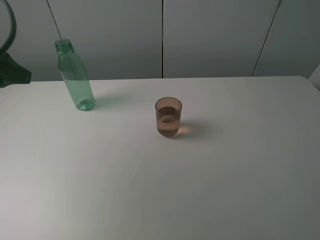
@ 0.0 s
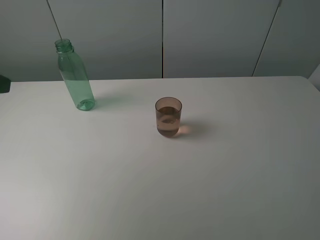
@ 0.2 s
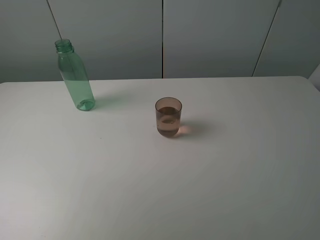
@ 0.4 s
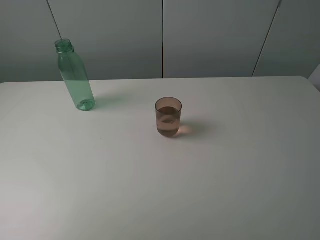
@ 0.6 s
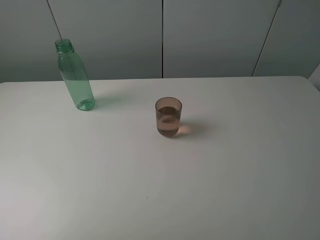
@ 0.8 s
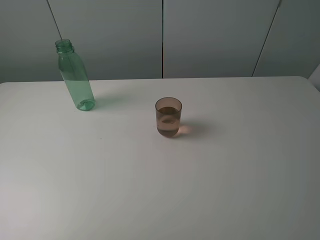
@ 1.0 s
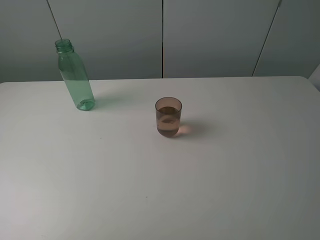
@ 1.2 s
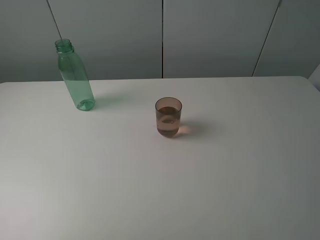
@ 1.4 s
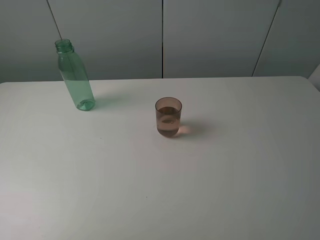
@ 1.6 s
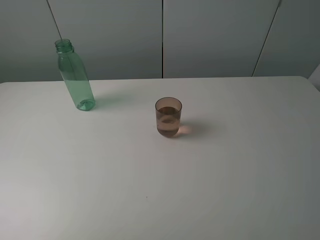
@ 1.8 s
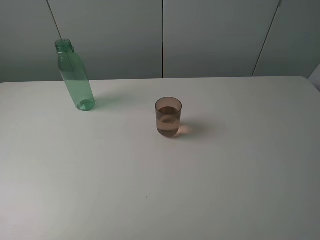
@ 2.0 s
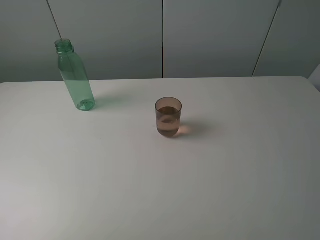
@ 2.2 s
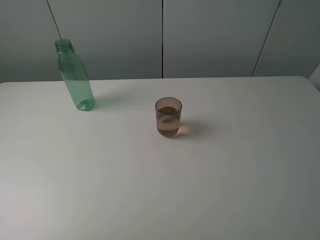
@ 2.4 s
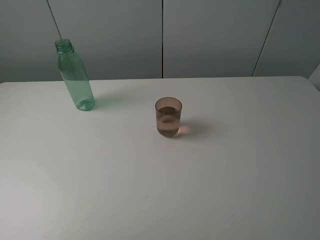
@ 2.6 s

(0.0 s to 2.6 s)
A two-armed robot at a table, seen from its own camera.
Task of the whole recording: pick up the bottle filled with water and pour it into the pink cup.
0.0 s - 1.2 s: The left gripper moves backward, some 20 cm.
1.2 s - 2.6 s: The two grippers keep their place.
